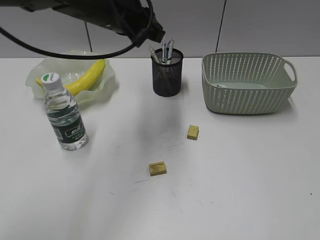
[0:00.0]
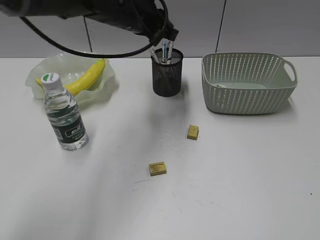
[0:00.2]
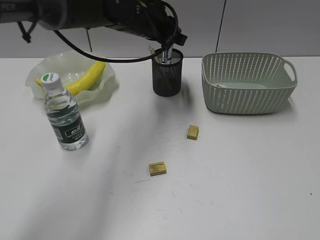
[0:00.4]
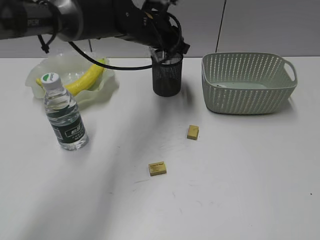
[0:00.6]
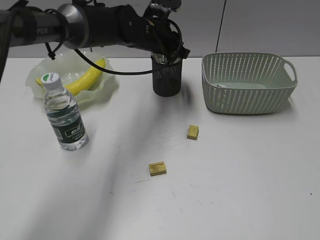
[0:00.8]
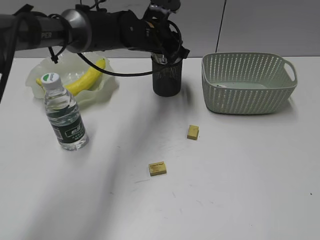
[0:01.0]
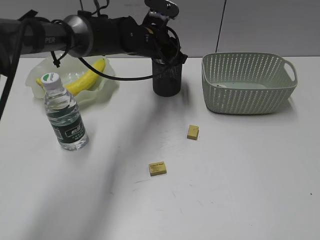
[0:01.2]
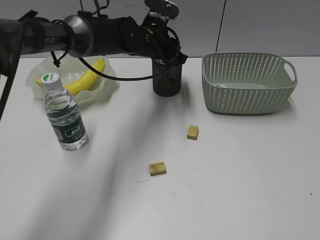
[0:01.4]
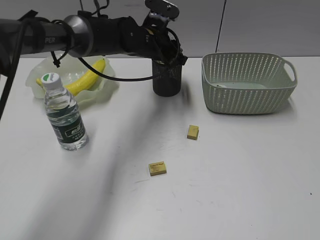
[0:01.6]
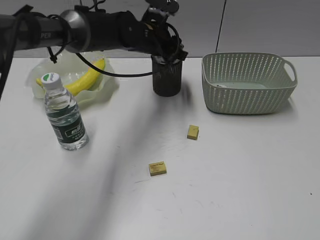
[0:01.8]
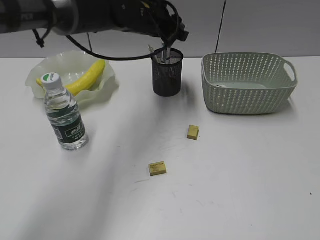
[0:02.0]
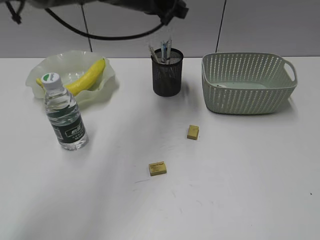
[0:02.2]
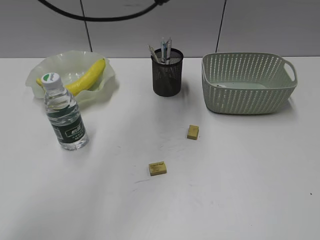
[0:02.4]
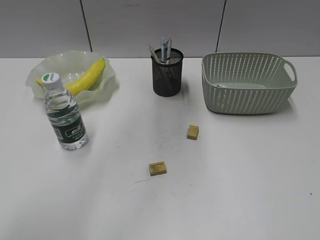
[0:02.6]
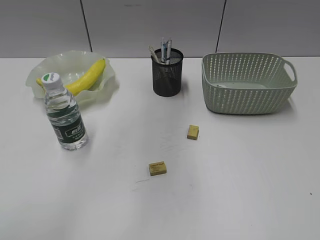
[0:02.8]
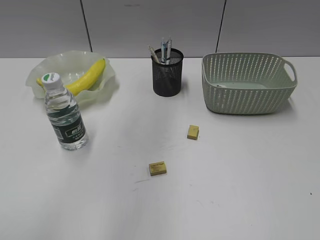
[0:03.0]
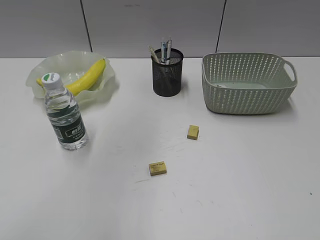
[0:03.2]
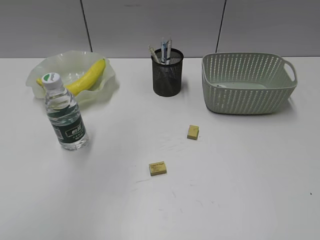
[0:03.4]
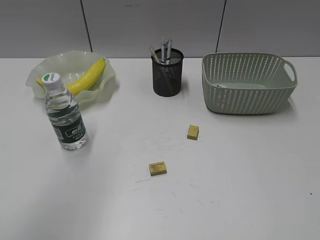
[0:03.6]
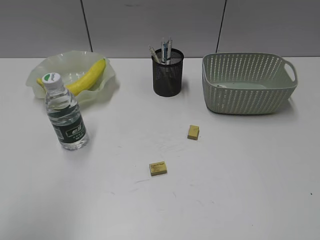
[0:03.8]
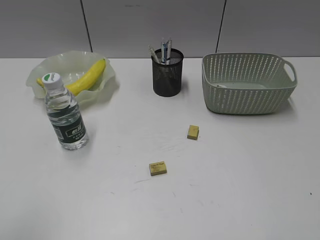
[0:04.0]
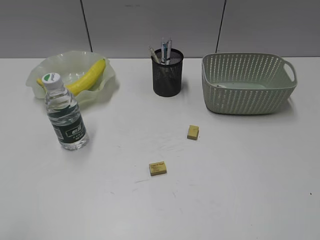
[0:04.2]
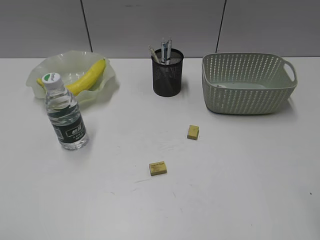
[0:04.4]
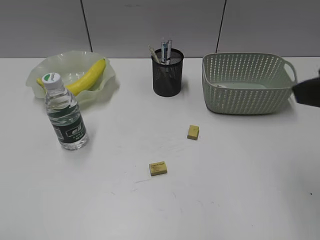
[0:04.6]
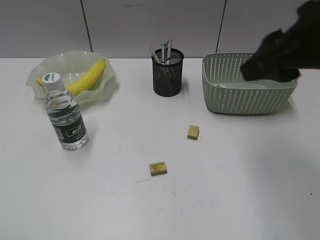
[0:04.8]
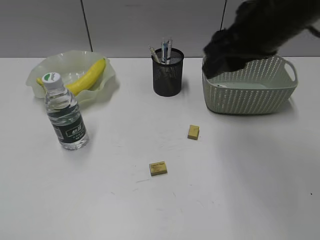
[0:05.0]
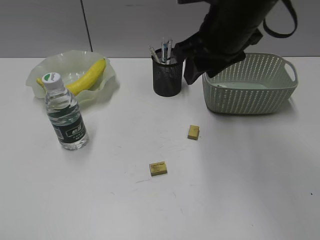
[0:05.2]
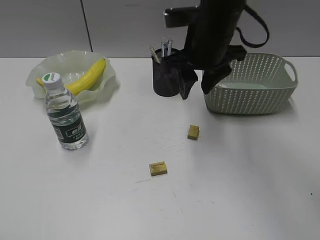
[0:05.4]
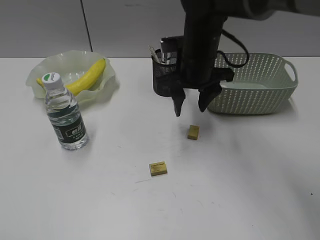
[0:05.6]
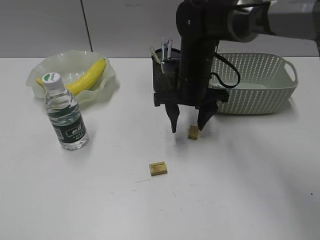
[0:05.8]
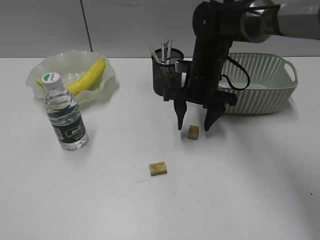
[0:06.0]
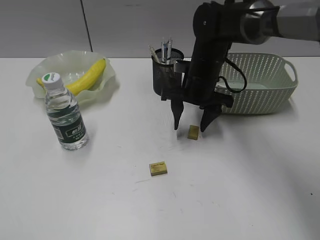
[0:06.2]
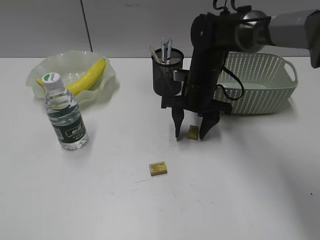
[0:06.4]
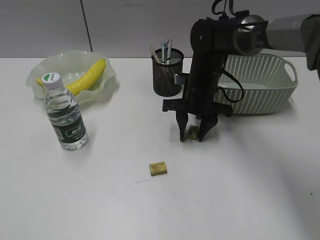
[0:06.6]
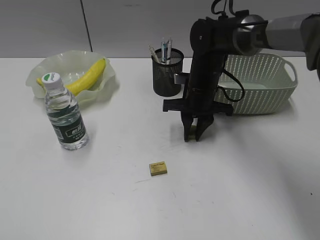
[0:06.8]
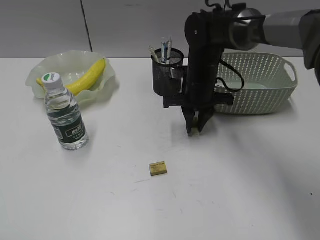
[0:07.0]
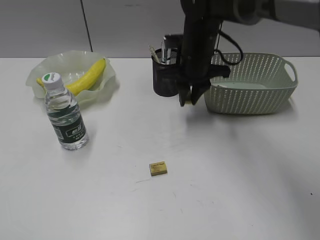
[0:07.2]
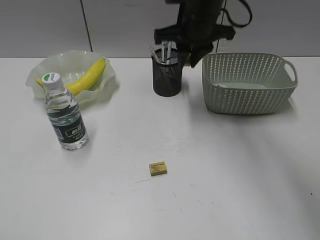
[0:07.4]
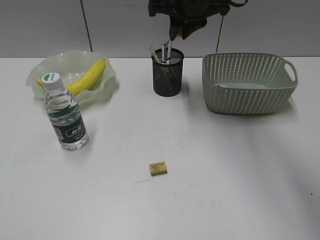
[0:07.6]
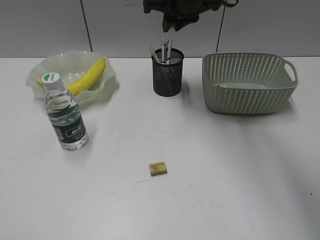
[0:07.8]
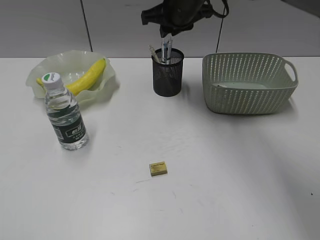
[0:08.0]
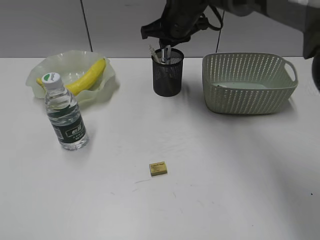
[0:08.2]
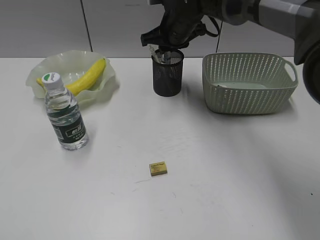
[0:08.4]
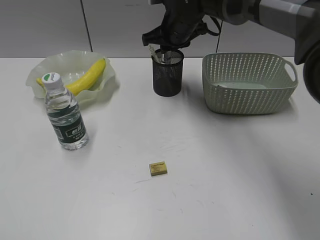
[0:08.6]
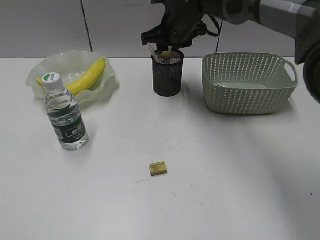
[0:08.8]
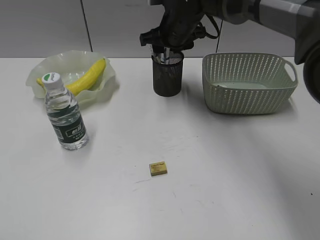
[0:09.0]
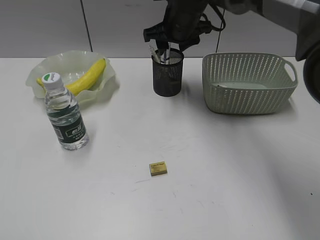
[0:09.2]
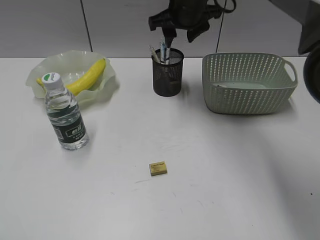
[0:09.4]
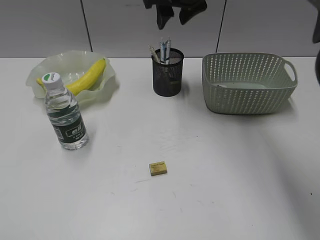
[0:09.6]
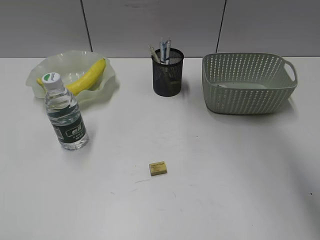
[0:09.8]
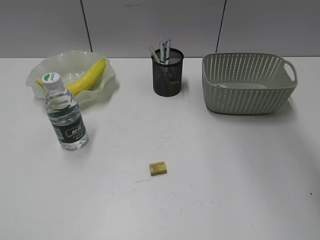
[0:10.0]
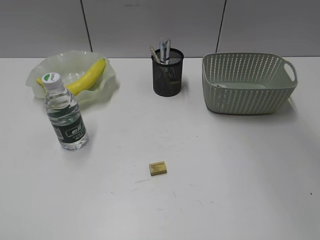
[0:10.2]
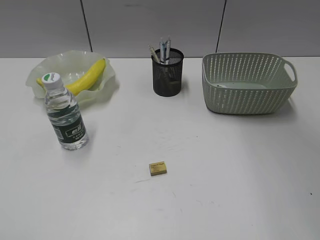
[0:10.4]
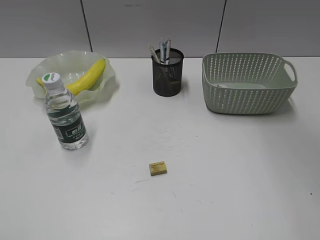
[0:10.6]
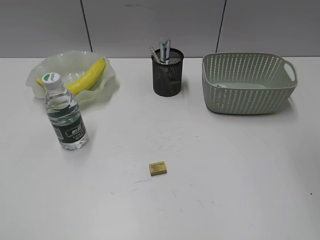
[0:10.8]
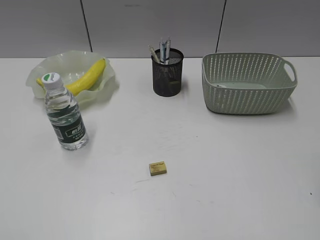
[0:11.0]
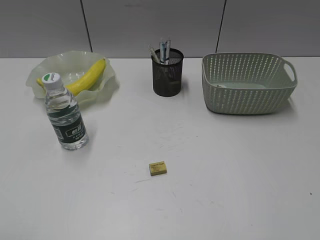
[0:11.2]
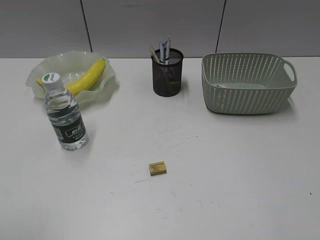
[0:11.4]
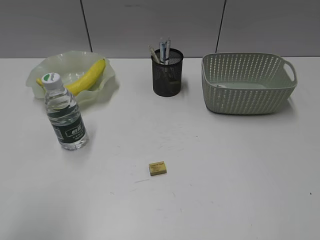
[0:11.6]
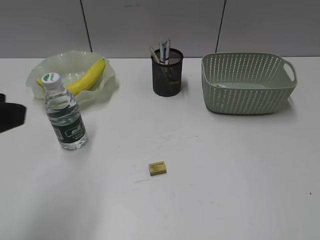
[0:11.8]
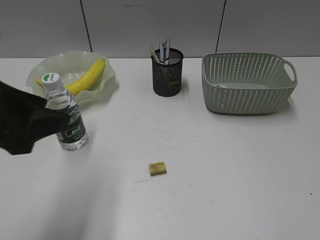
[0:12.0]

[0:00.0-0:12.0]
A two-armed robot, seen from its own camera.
Step, 0:00.0 to 0:01.8: Place the eraser in pen holder with left gripper.
Step, 0:02.0 to 0:06.6: Grasp the eraser with right gripper.
Step, 0:06.8 to 0:09.0: Place the eraser in pen holder with right gripper.
0:00.0 to 0:01.6: The left gripper heads downward, forward and to the right, covering some 15 cm.
0:01.6 to 0:03.0: The left gripper travels upward and backward by about 35 cm.
0:03.0 to 0:04.4: The left gripper heads backward, to the left and downward, covering approximately 40 cm; the right gripper travels forward and to the left by about 10 cm.
0:04.4 to 0:06.0: The right gripper is displaced forward, downward and to the left by about 40 cm.
0:06.0 to 0:07.6: The right gripper goes about 15 cm upward, and closes up.
0:07.6 to 0:09.0: The right gripper goes approximately 10 cm downward, and opens its fingers.
0:09.0 to 0:10.4: The right gripper moves upward and backward, about 30 cm.
0:10.4 to 0:12.0: The left gripper travels forward and to the right by approximately 20 cm. Meanwhile the right gripper heads backward, to the right and downward, covering roughly 40 cm.

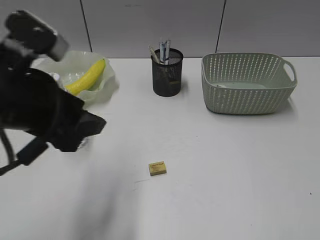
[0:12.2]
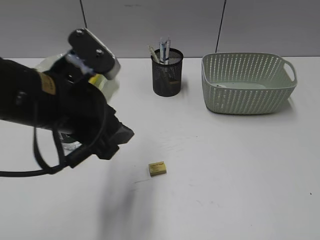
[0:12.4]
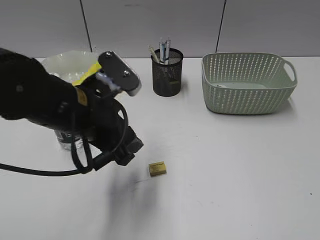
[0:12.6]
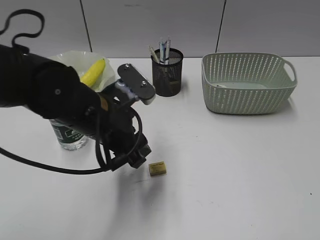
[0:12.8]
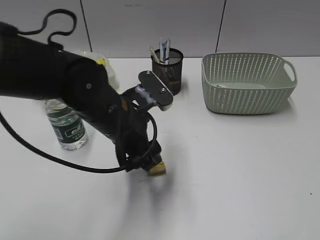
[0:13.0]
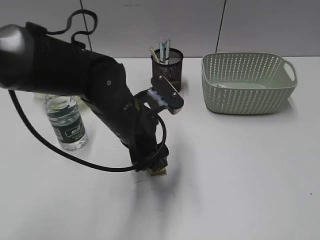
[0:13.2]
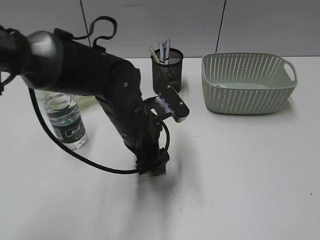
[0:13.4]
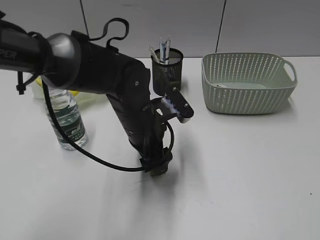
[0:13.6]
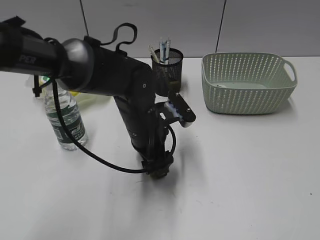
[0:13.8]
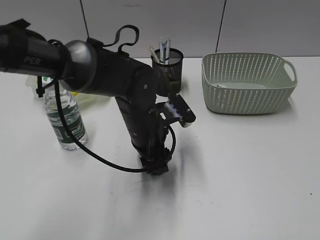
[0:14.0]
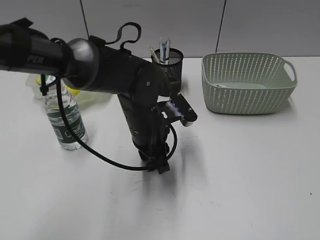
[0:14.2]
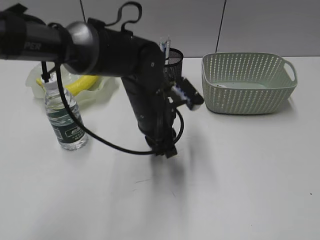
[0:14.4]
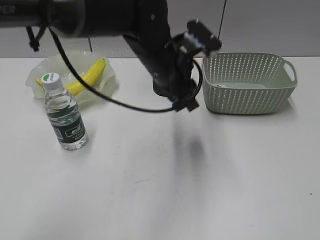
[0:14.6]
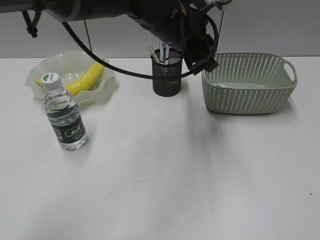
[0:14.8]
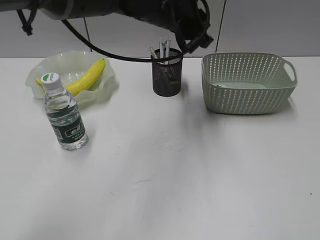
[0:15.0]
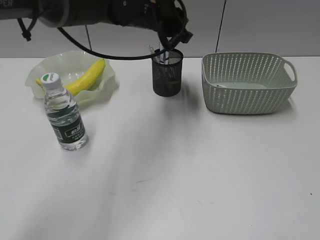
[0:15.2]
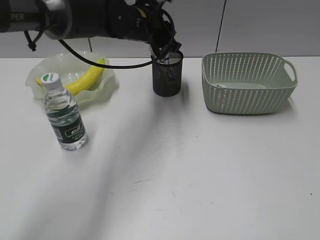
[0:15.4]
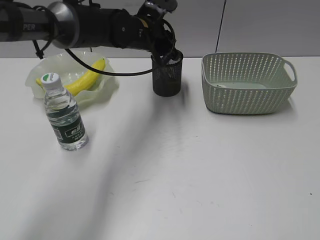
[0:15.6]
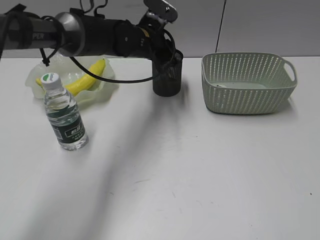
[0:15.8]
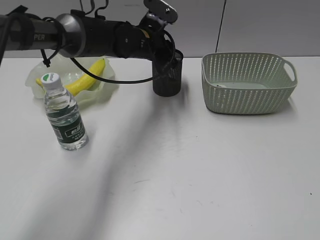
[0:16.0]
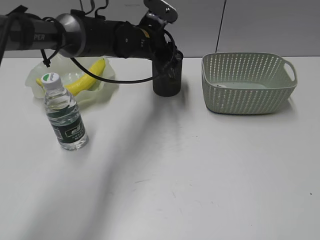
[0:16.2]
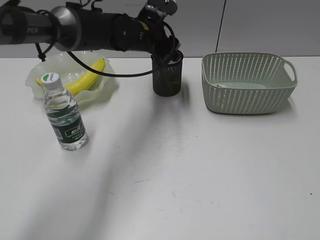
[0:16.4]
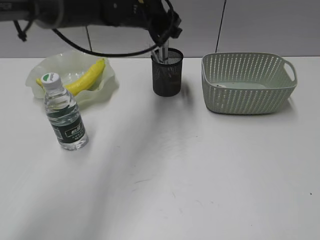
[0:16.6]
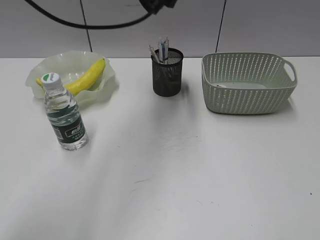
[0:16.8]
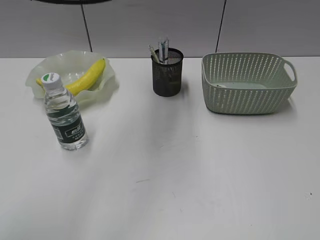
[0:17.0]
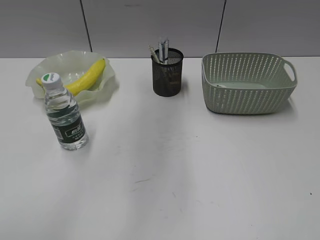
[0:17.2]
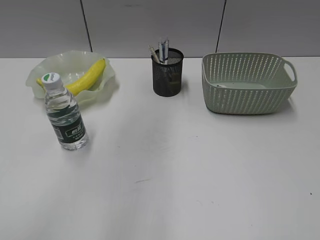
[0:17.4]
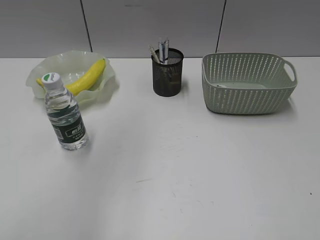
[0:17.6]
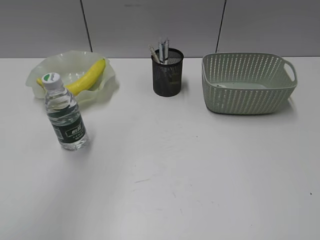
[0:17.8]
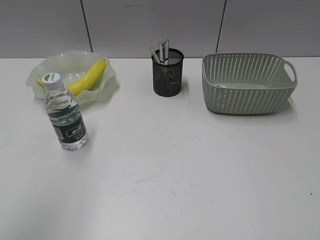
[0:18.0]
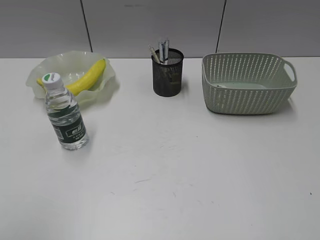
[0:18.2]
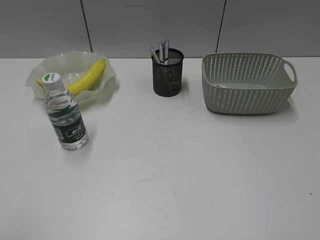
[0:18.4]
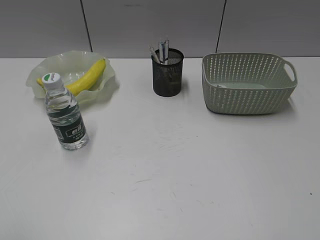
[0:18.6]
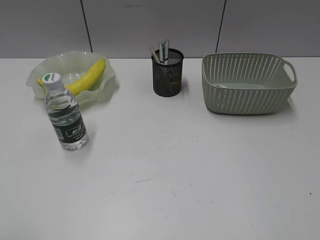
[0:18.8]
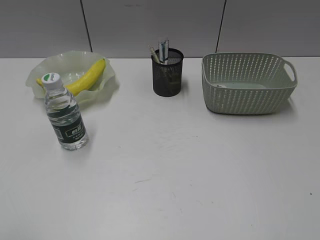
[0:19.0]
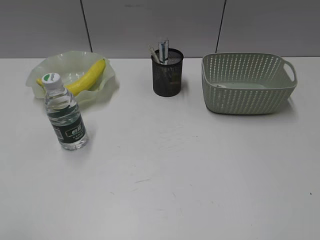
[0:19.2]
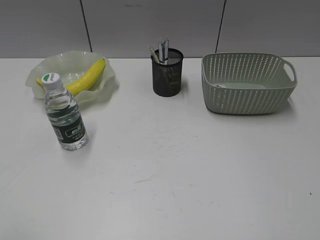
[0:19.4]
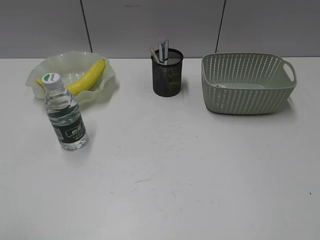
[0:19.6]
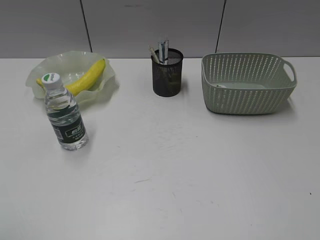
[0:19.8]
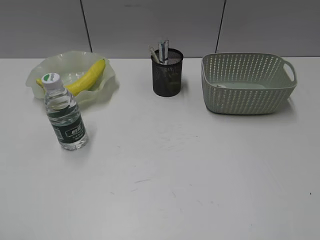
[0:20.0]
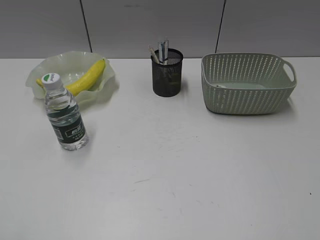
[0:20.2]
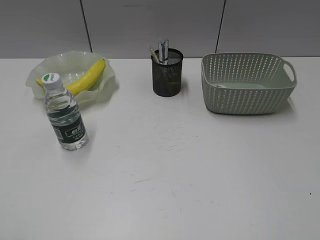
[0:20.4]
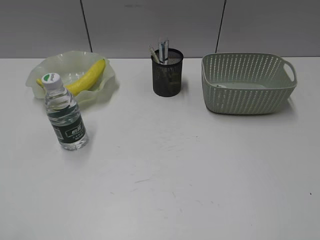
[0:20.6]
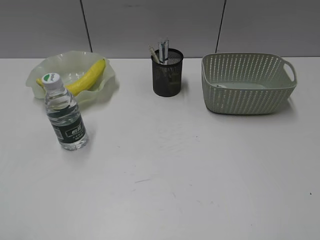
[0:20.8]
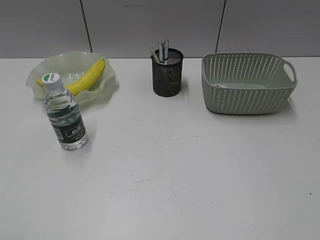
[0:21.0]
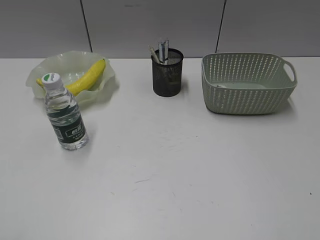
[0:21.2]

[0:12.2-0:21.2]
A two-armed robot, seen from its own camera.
Step, 0:14.2 to 0:16.4: Place the eraser in pen holder with left gripper.
0:12.2 to 0:13.8: The left gripper heads to the right, downward and forward, covering roughly 25 cm.
0:13.8 to 0:15.2: The left gripper is displaced upward and forward by some 20 cm, and closes.
0:15.2 to 0:16.6: The left gripper moves some 10 cm downward and comes back, and opens up.
0:16.6 to 0:18.2: The left gripper shifts roughly 50 cm backward, to the left and upward.

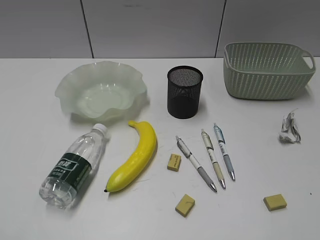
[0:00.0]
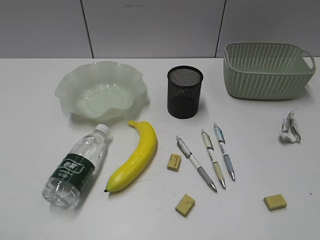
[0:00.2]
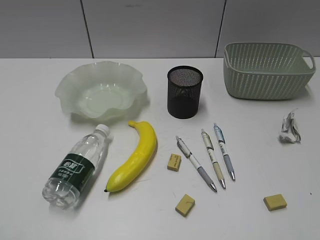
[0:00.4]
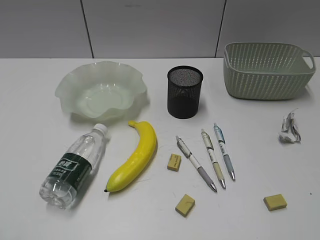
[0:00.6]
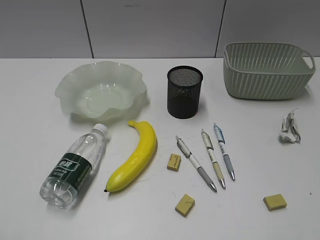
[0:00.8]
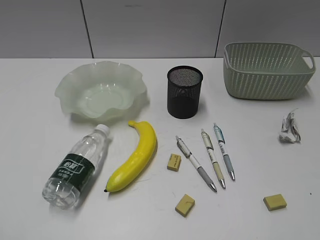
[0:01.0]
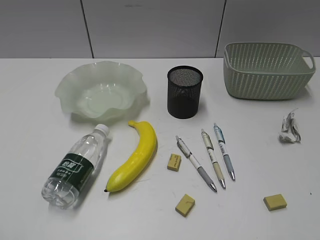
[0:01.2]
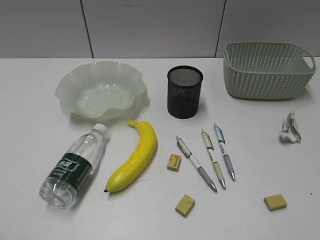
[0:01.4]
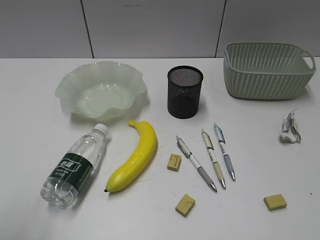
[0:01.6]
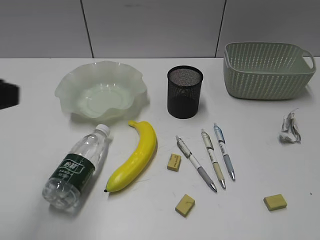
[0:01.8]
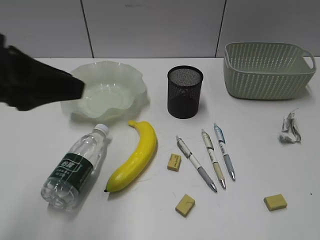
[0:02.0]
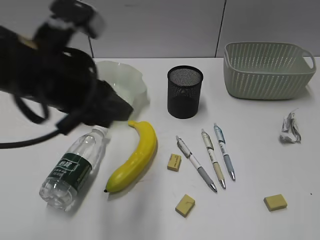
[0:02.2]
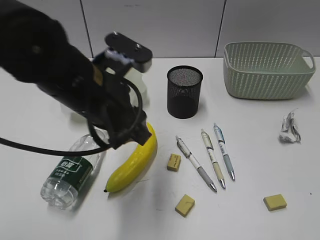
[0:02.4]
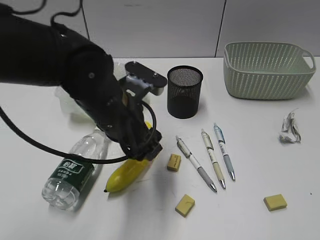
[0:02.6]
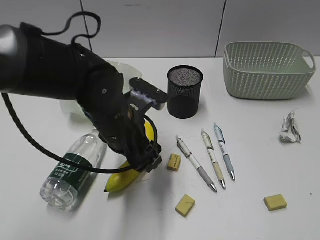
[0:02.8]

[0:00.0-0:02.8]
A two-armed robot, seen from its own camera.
0:01.4 to 0:02.8: The left gripper shifts some 40 cm forward, to the right and downward, and opens its fingers.
